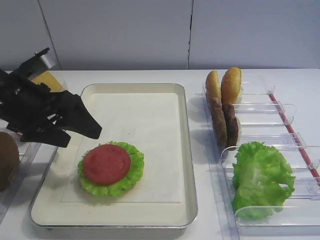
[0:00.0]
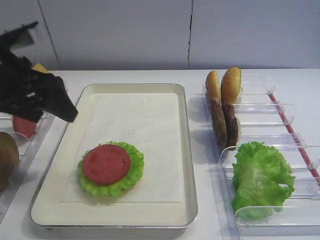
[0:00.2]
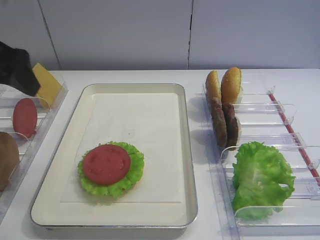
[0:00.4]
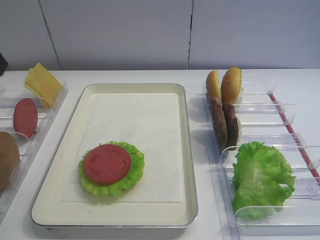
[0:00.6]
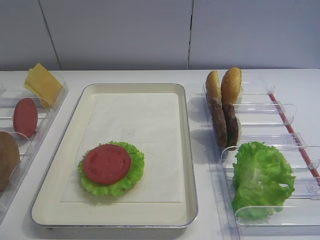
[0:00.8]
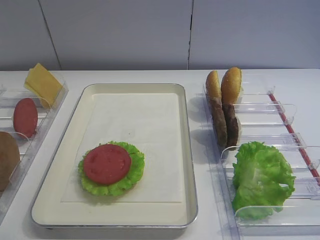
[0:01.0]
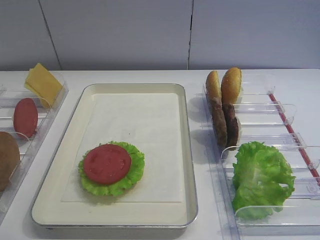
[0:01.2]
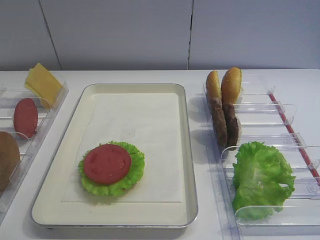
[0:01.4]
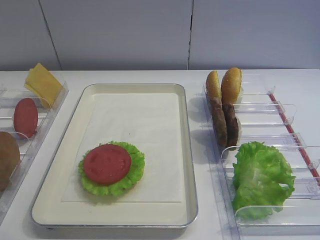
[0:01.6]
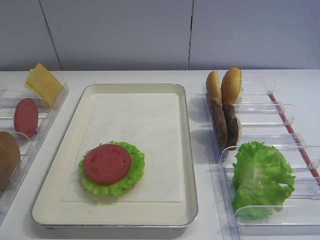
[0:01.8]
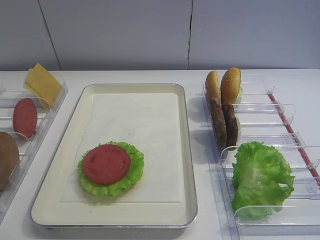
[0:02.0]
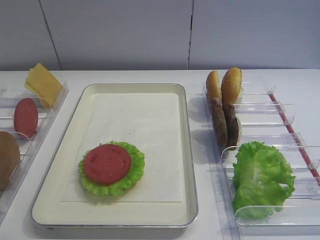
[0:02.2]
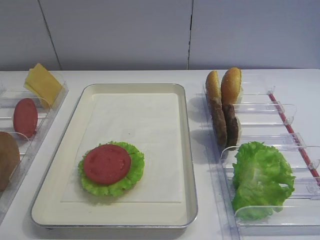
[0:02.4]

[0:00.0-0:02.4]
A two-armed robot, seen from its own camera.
0:00.0 to 0:01.2: The left gripper is displaced backward and upward by some 25 cm.

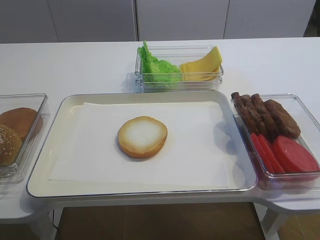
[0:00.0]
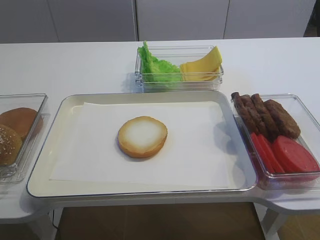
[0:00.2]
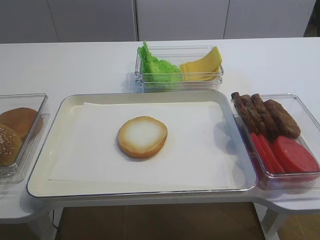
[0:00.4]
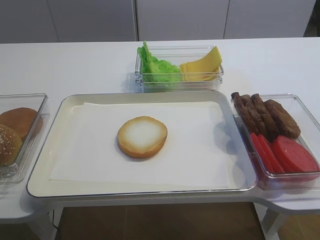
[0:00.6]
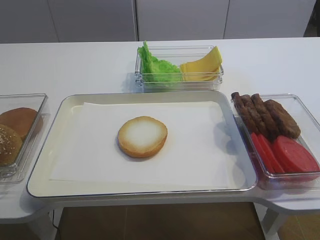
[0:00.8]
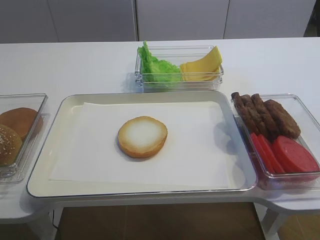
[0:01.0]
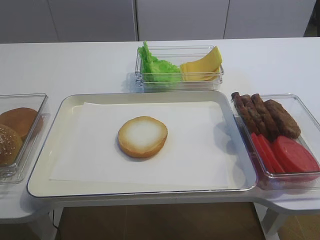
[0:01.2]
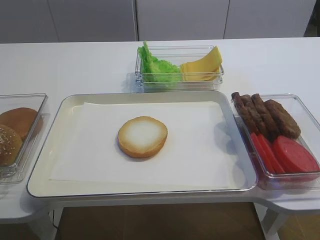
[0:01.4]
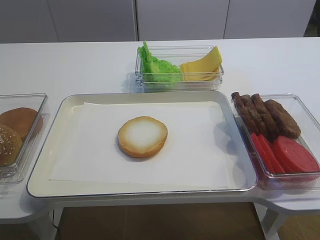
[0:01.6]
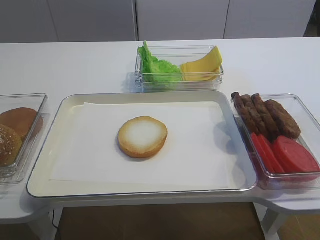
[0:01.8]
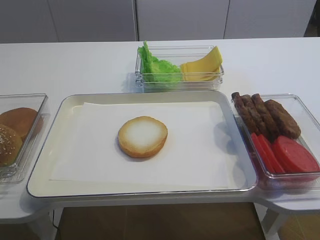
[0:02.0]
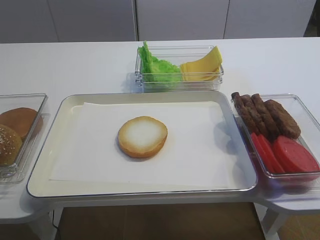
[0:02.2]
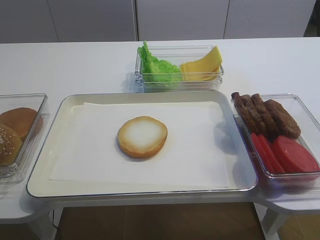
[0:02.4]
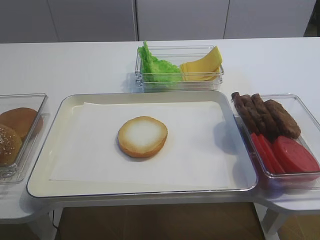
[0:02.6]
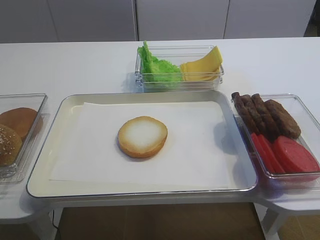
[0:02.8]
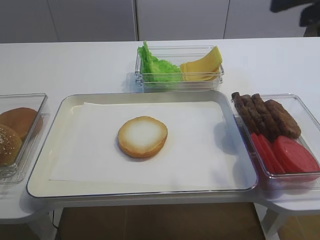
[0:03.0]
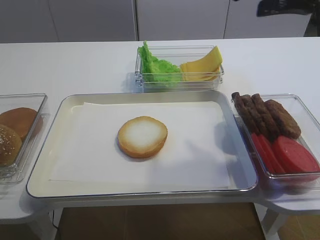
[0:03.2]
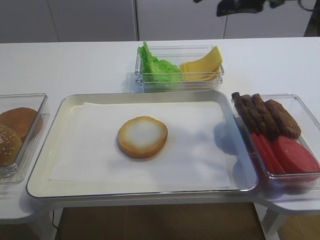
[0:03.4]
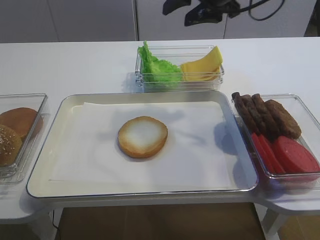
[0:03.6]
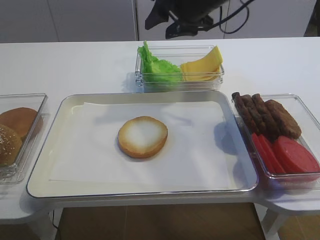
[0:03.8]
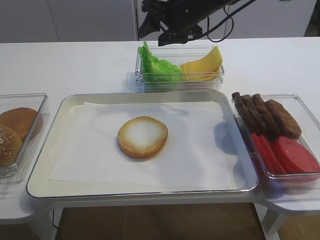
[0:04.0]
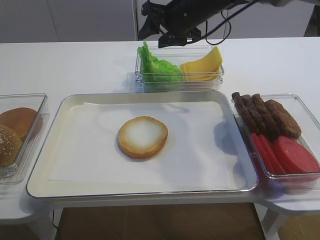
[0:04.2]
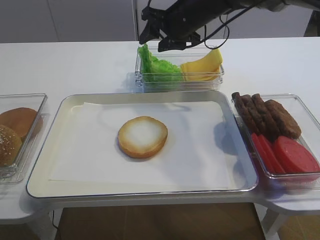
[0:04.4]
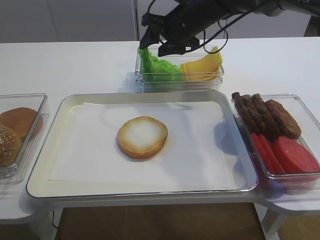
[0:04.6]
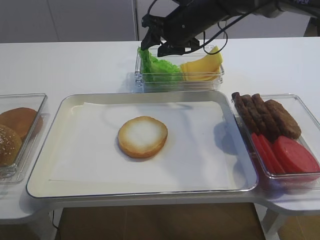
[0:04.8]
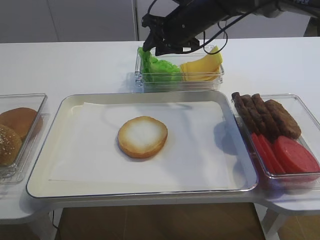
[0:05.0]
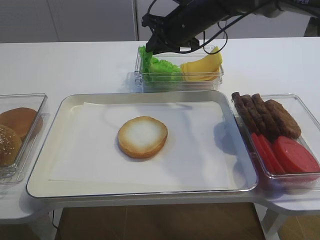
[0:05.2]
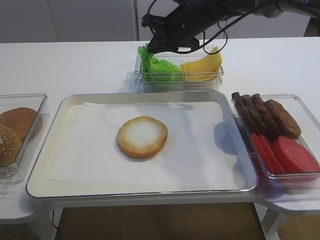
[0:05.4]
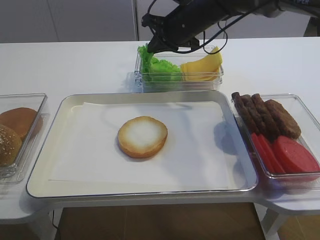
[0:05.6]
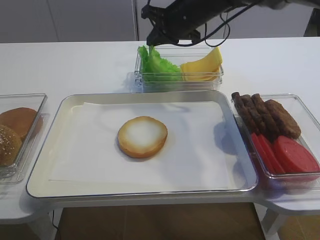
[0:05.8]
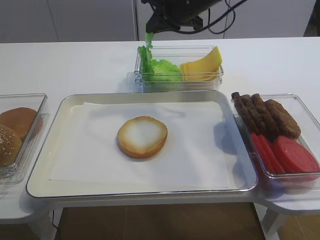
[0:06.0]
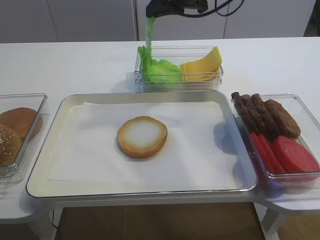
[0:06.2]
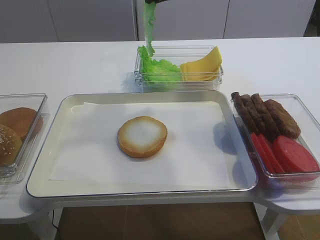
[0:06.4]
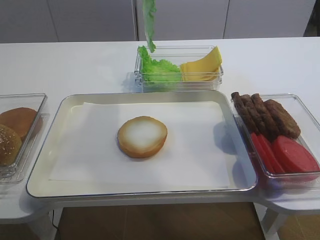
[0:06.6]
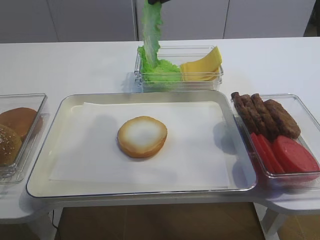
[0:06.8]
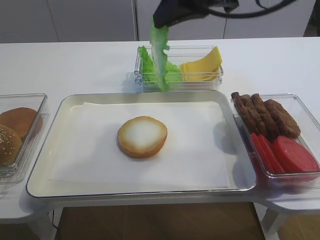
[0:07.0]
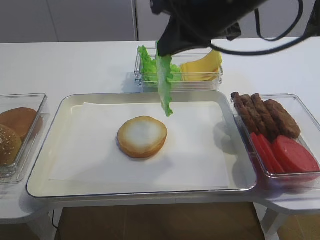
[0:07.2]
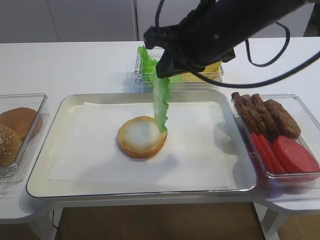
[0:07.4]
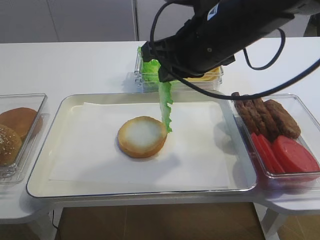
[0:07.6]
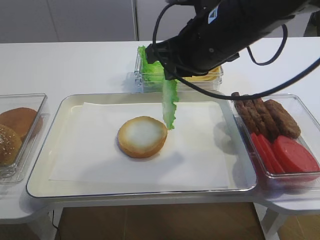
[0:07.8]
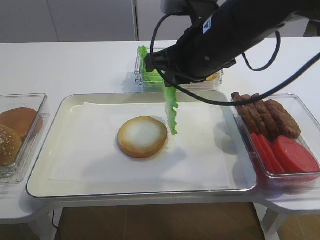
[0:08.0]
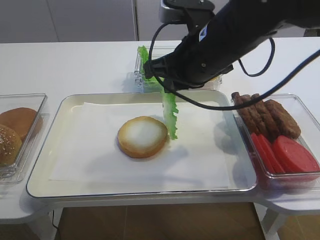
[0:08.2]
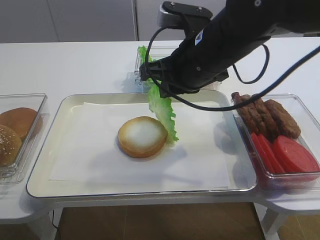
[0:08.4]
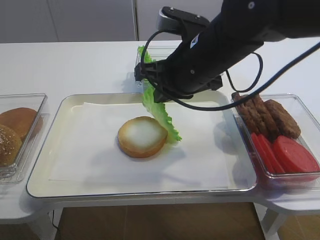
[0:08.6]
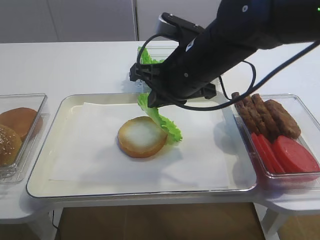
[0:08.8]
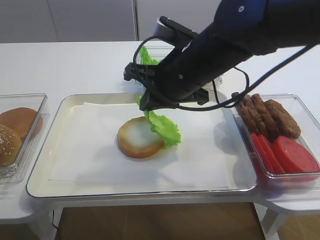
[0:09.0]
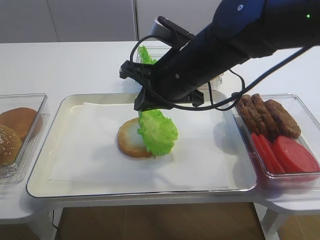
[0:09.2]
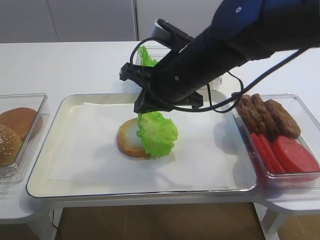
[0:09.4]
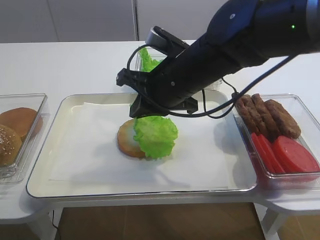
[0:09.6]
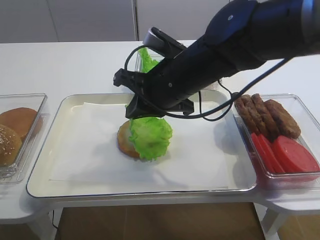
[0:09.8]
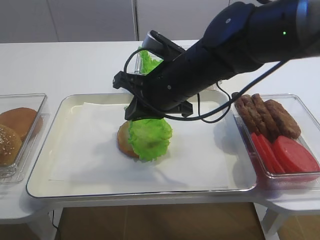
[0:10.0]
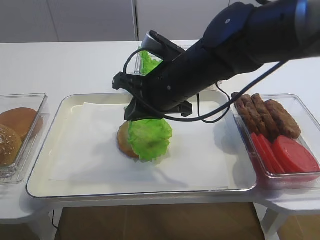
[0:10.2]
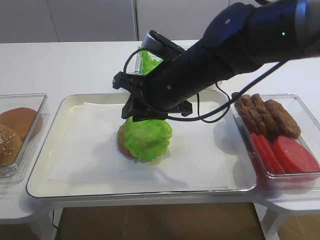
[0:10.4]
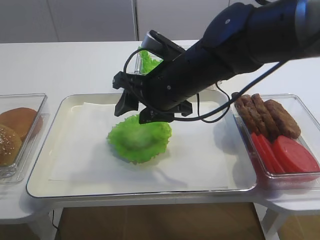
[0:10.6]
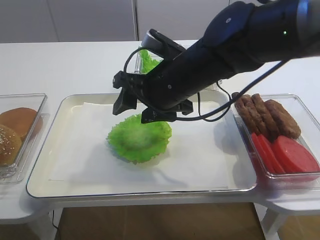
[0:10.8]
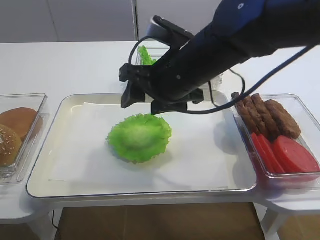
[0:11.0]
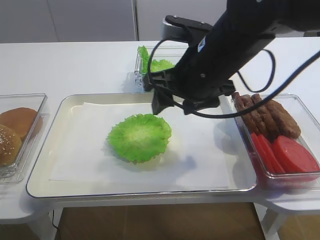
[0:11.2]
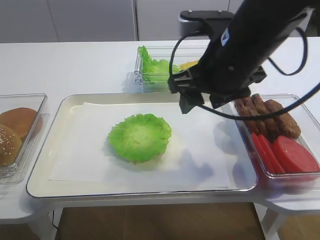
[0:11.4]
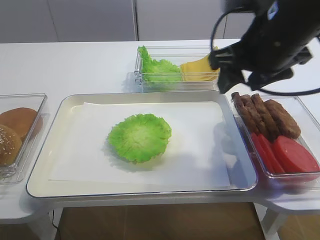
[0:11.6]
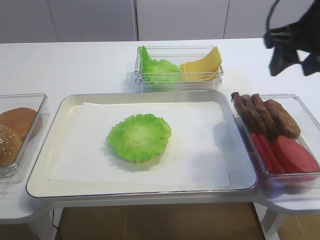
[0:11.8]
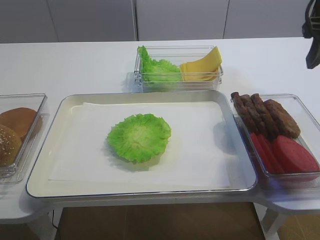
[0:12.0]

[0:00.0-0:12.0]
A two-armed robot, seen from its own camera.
Step, 0:00.0 to 0:05.8: Pick up the lettuce leaf with the right gripper.
Step, 0:06.0 to 0:10.6: Place the lettuce leaf on the bread slice with the right gripper.
0:01.6 to 0:03.0: The right gripper shifts about 25 cm forward and upward.
0:03.0 to 0:04.4: The right gripper goes some 30 cm forward, to the left and downward.
0:04.4 to 0:06.0: The right gripper closes up.
0:06.0 to 0:07.6: The right gripper goes some 20 cm backward.
0:07.6 to 0:09.0: The right gripper ends up roughly 5 cm from where it was.
0:09.0 to 0:10.4: The right gripper opens its fingers.
0:10.4 to 0:12.0: The right gripper travels to the right and upward by roughly 25 cm, and opens its fingers.

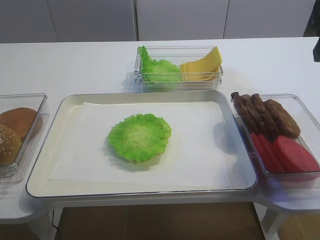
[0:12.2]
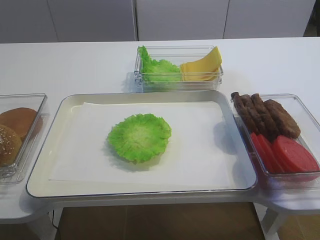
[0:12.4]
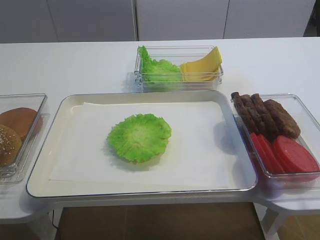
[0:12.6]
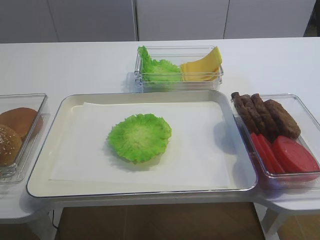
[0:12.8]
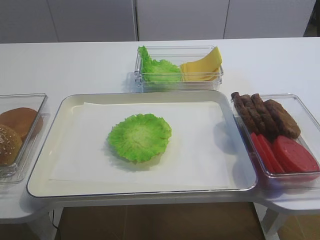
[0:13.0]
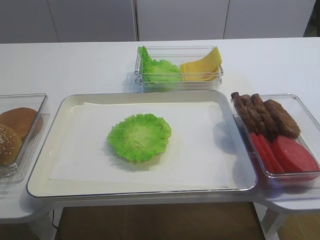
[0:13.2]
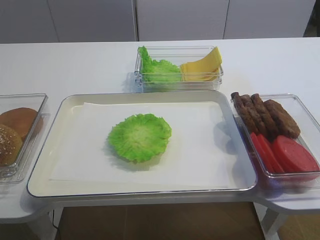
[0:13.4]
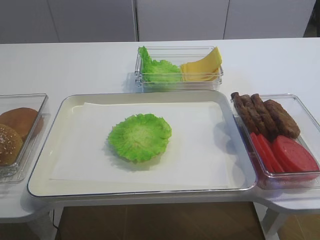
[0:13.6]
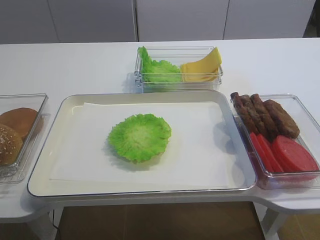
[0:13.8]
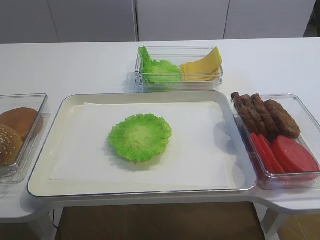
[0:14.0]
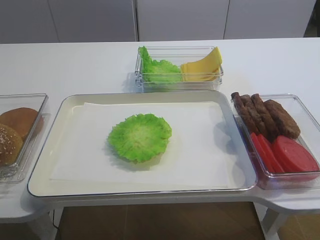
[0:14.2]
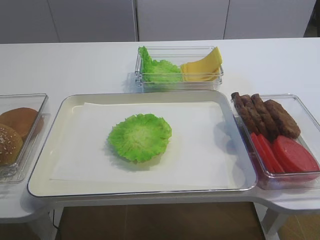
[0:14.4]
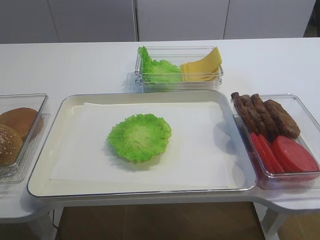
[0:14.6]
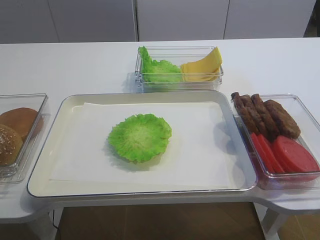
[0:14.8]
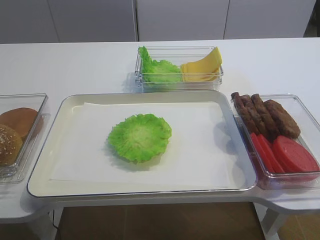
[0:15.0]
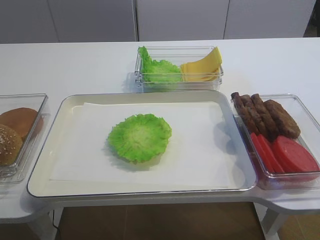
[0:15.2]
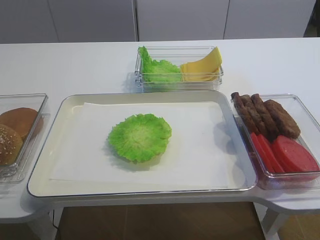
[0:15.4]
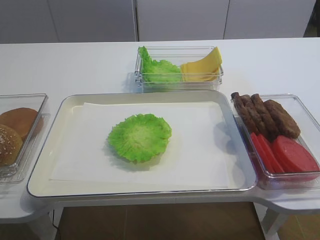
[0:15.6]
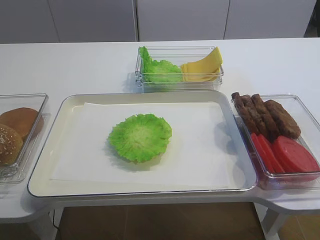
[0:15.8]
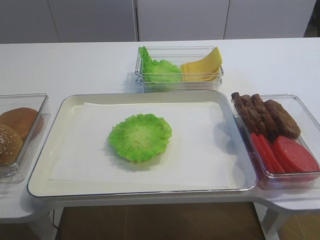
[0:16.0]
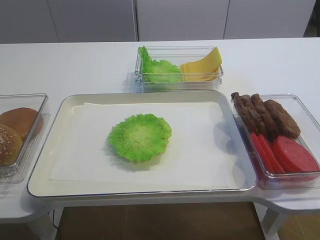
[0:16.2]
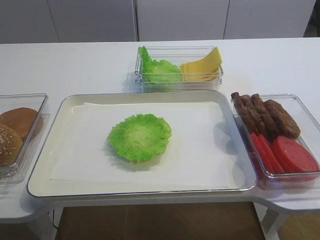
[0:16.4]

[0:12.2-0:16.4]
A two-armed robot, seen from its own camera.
0:12.2 to 0:13.6: The right gripper travels backward by about 30 cm.
0:15.0 to 0:16.4: Neither gripper changes place.

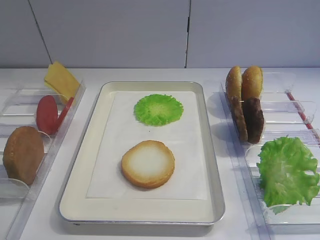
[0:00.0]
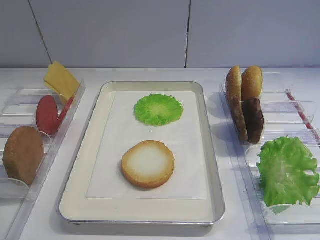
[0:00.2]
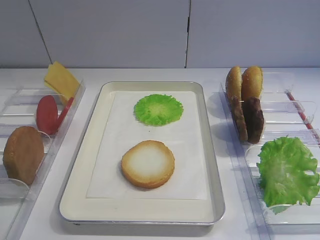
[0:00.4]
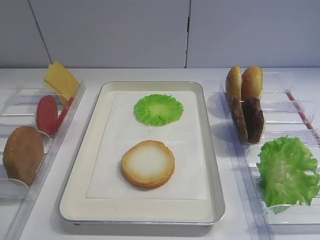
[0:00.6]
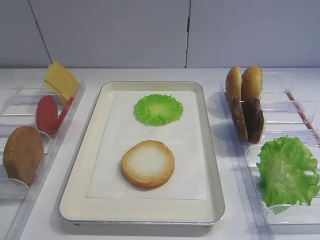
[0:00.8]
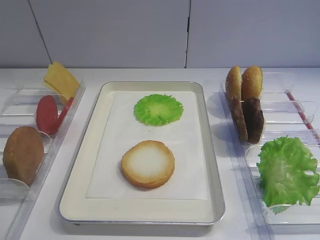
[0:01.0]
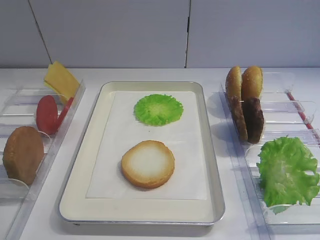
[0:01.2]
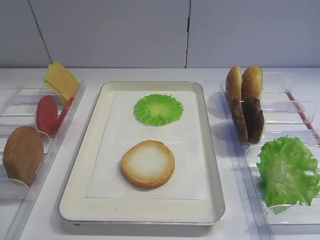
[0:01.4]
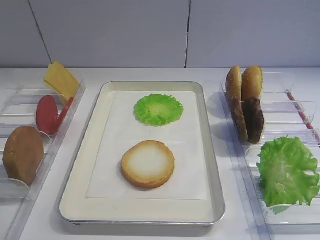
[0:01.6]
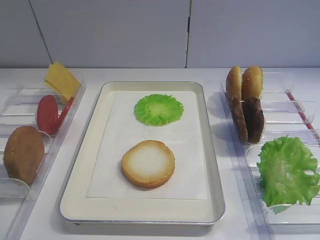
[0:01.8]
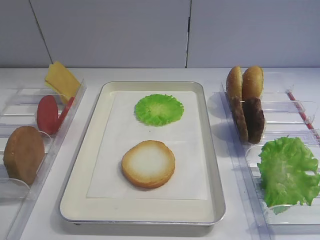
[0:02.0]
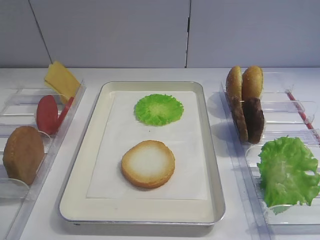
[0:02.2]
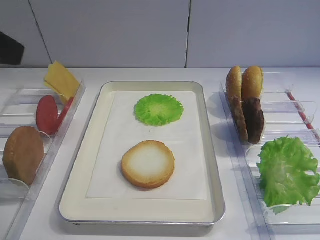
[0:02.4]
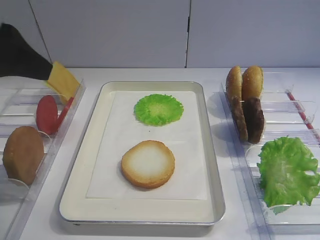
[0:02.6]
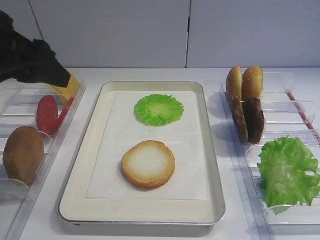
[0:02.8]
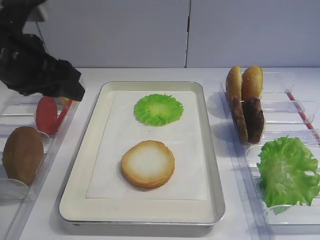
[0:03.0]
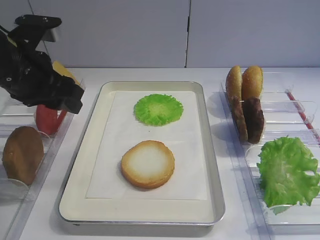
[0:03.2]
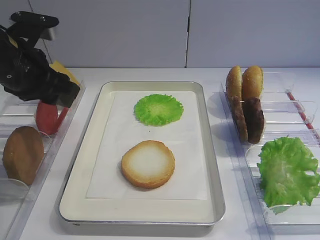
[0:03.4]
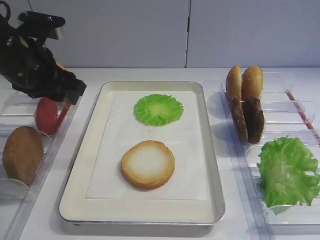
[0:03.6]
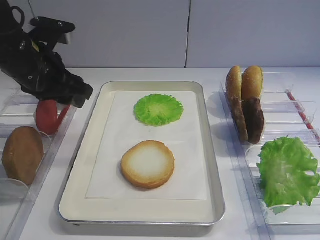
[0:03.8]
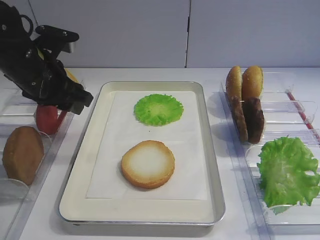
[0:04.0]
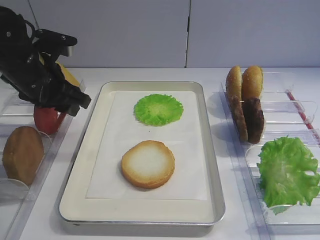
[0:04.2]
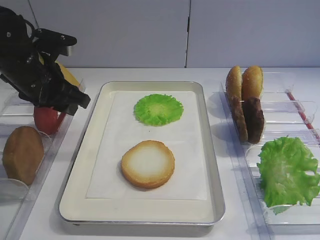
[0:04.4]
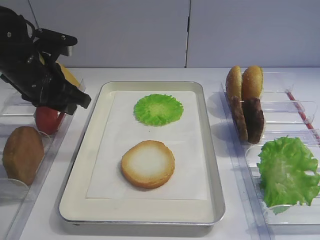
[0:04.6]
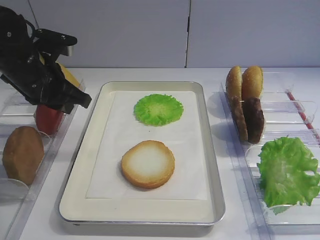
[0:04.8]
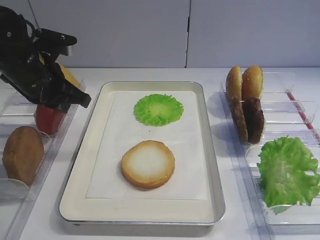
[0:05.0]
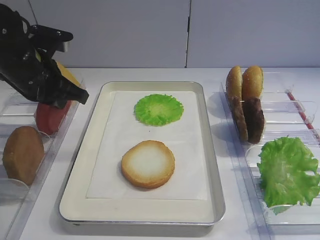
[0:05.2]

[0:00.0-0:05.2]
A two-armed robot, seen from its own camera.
0:01.8 to 0:03.4: The left gripper goes approximately 30 cm forward.
0:03.4 to 0:05.2: The left gripper closes.
